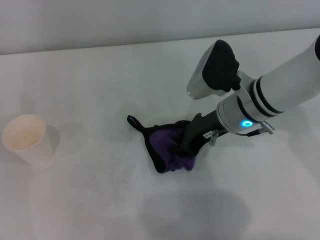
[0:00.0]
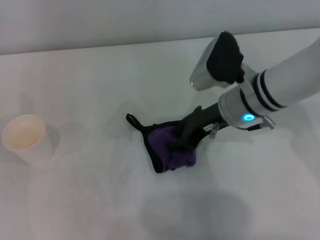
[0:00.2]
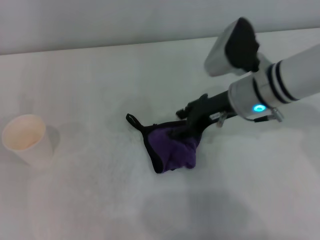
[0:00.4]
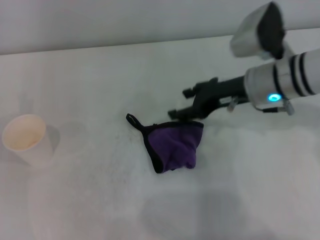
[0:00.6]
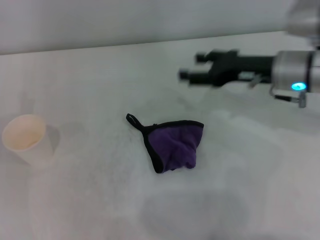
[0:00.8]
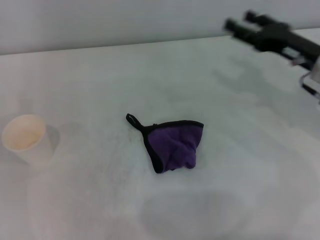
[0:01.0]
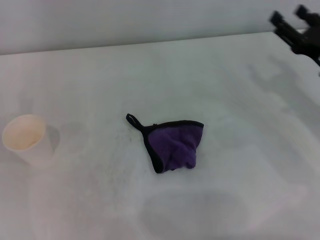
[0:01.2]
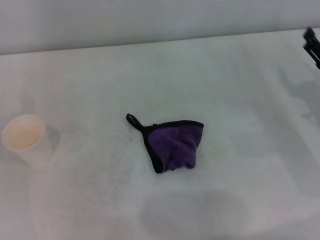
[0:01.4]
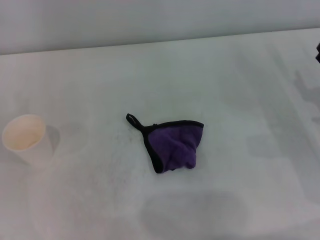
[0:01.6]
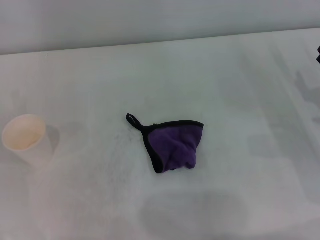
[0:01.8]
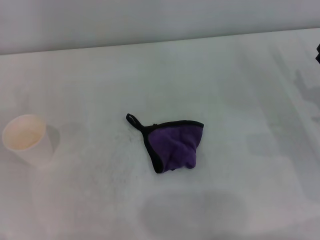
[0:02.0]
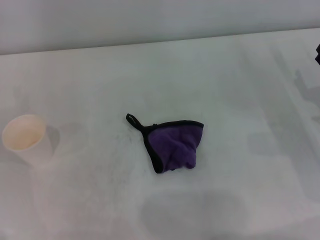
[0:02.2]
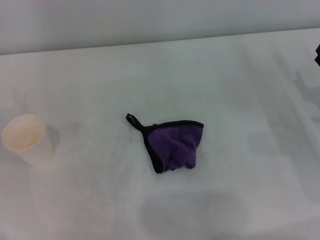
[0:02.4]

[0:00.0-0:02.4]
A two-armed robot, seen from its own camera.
0:00.0 to 0:01.2: The right gripper moves to the right, some 15 cm, and opens its fingers.
0:01.2 to 0:02.4: The right gripper changes place by approximately 5 cm.
